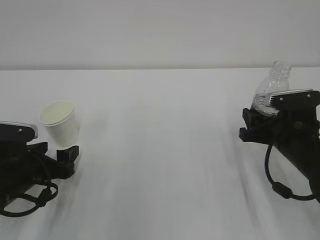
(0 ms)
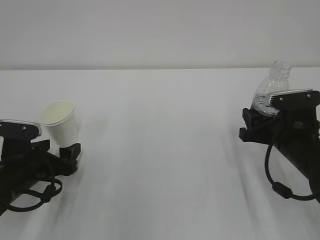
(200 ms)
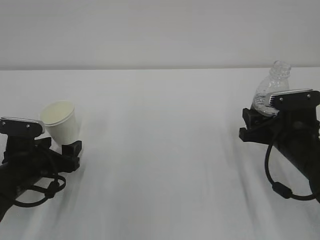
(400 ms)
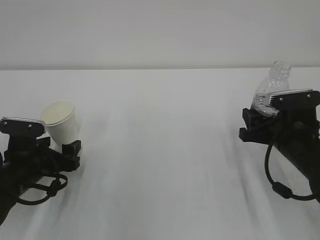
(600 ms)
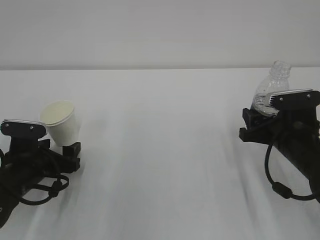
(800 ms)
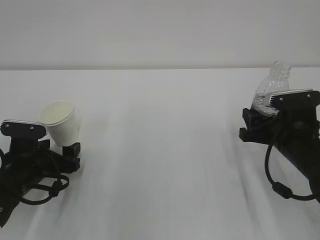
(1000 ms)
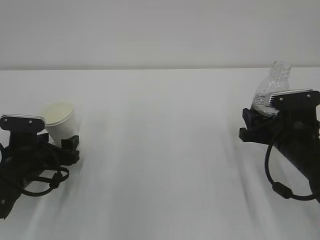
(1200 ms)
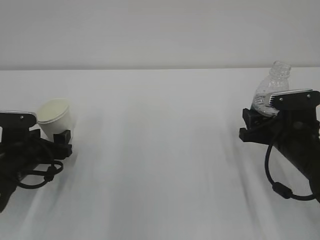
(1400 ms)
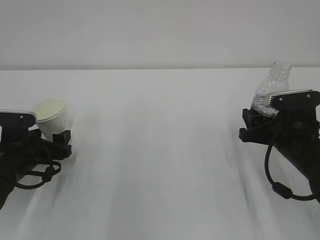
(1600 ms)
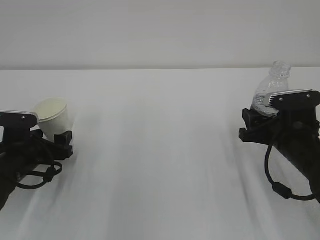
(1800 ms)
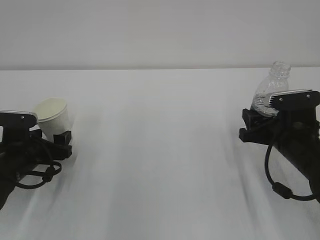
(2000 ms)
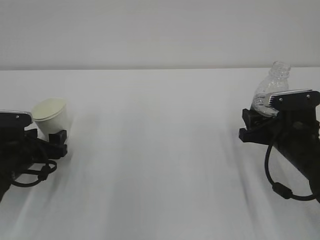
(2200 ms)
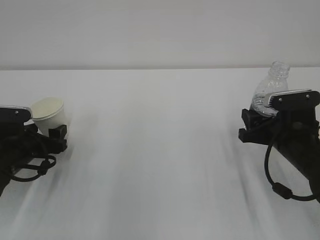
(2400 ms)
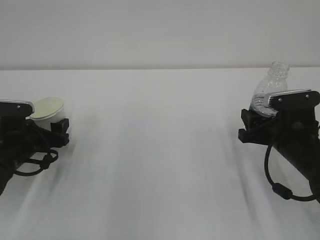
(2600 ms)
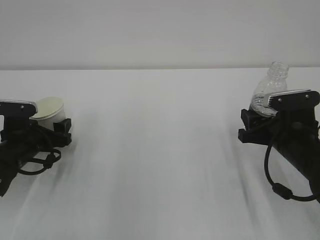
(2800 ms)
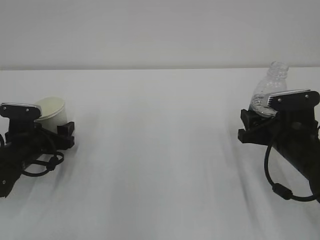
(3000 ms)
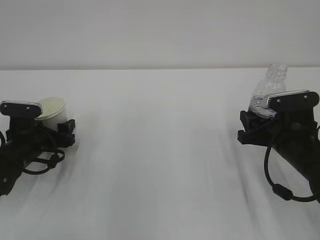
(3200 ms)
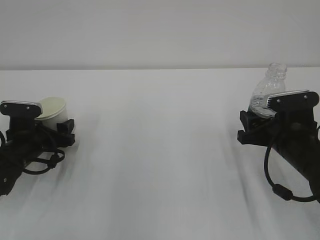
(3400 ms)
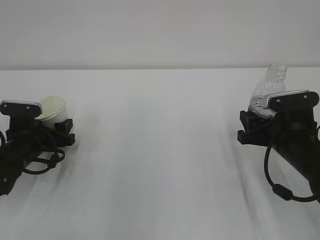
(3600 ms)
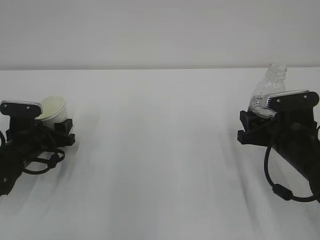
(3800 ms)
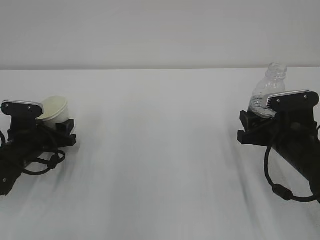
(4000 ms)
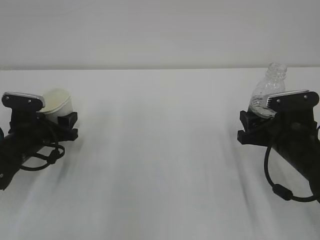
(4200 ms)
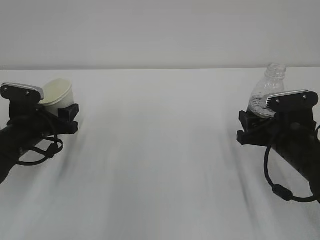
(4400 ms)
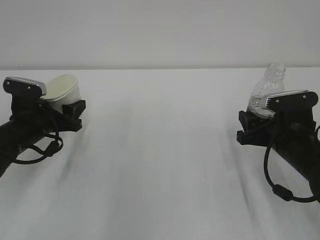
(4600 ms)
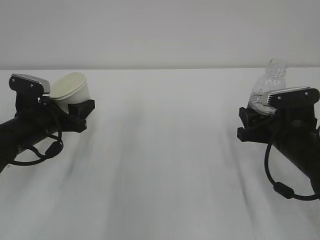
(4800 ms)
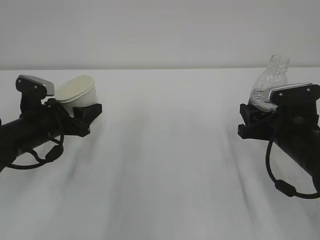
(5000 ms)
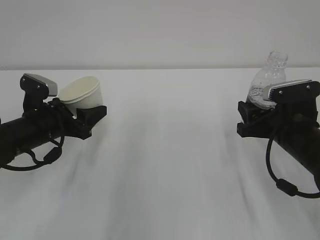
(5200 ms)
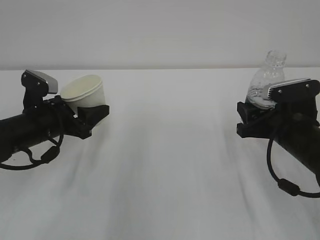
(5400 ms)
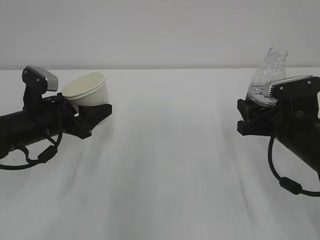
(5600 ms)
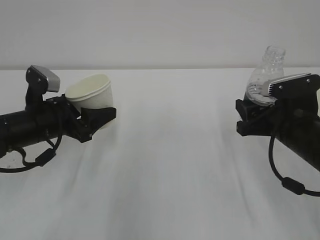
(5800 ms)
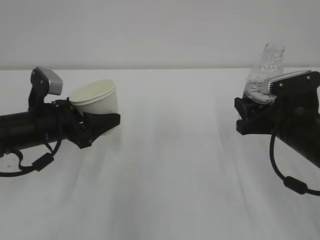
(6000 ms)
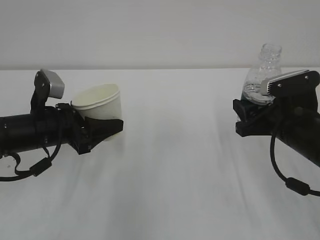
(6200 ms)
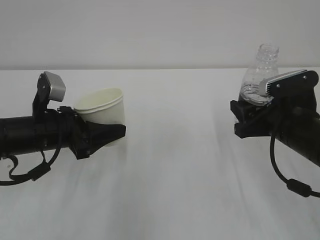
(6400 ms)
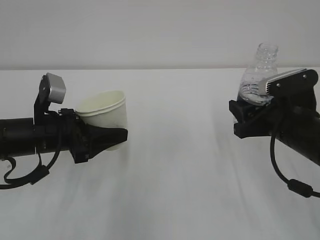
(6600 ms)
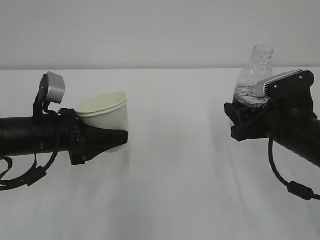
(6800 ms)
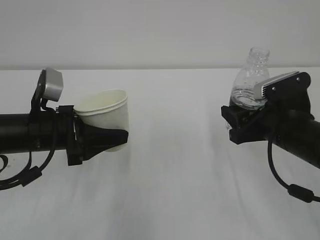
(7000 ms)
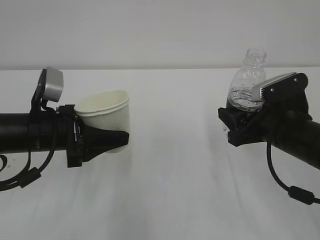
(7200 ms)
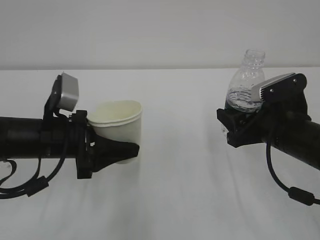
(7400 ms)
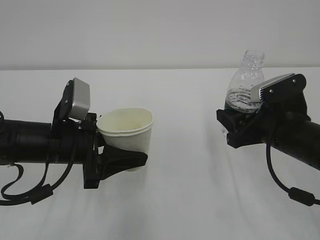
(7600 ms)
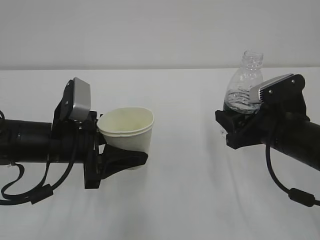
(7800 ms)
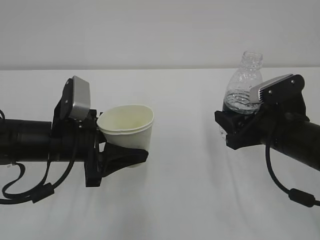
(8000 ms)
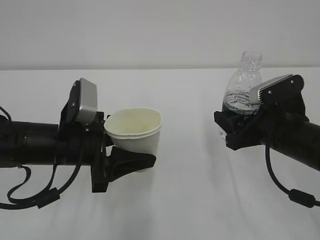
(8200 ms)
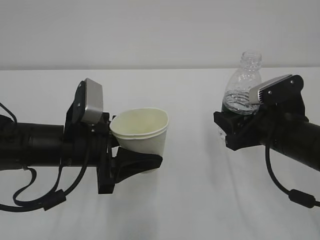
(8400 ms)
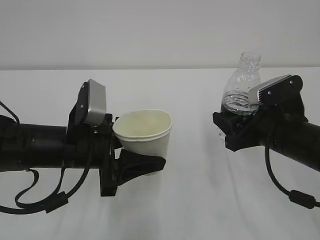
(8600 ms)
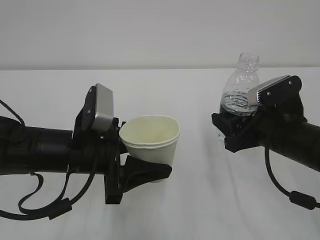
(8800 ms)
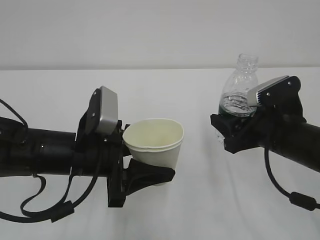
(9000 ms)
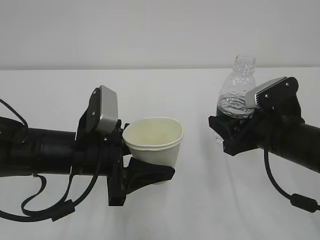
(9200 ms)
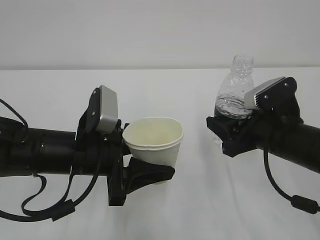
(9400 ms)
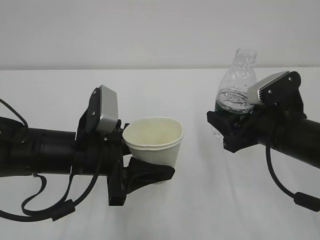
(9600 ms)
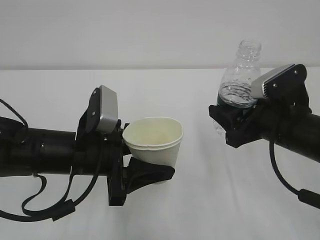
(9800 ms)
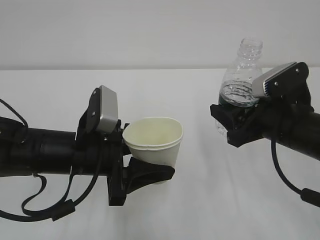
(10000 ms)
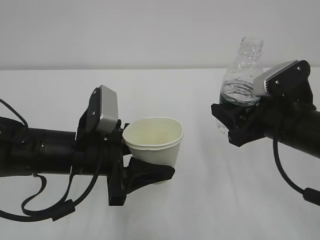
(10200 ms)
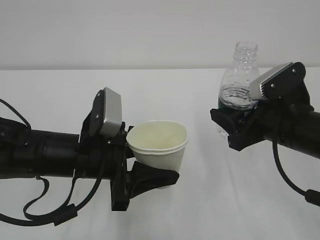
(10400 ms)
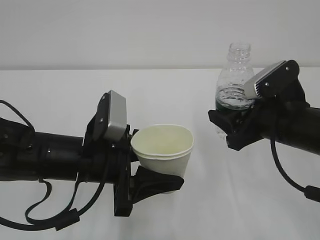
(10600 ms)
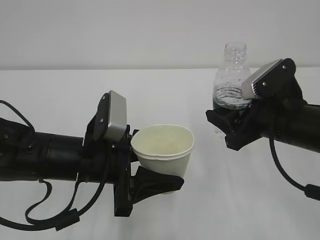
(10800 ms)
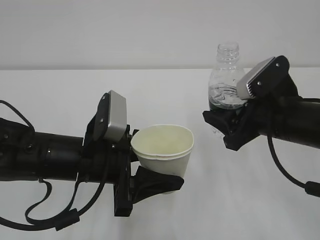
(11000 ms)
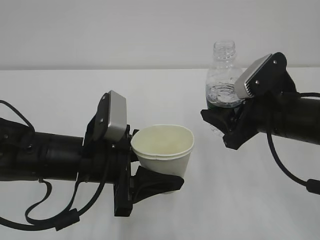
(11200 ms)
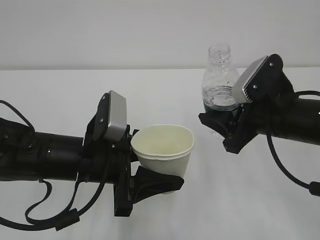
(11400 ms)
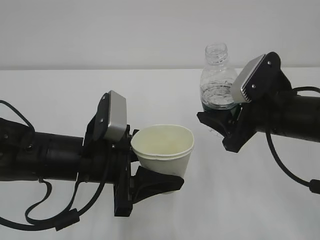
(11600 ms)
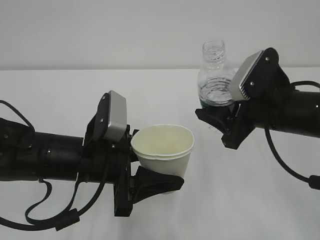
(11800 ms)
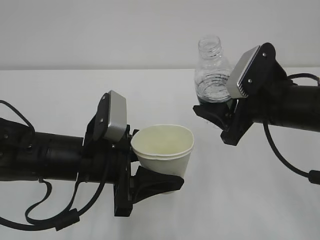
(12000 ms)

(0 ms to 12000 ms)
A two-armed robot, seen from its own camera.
0 ms - 1600 ms: The left gripper changes place by some 5 cm.
1600 ms - 3000 ms: The grippers make only small movements.
3000 ms - 4400 ms: The left gripper closes.
4400 ms - 6000 ms: The left gripper moves upward and to the right, about 5 cm.
6000 ms - 7600 ms: The left gripper changes place by about 5 cm.
7600 ms - 10400 ms: There are only small adjustments of the grippers.

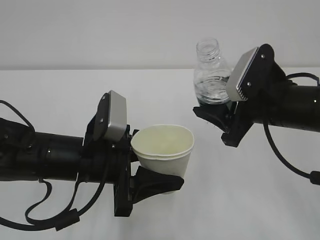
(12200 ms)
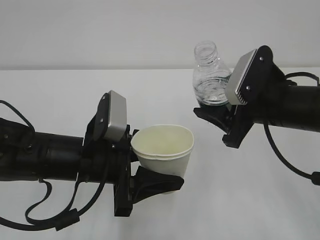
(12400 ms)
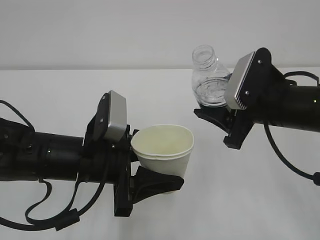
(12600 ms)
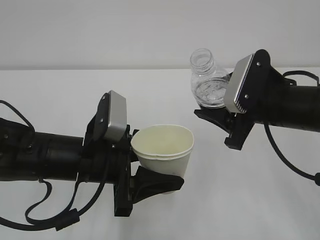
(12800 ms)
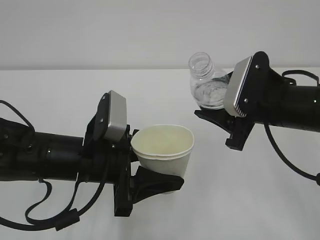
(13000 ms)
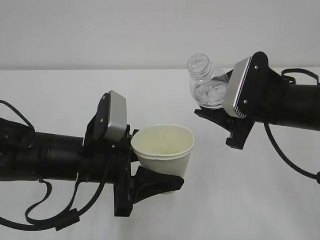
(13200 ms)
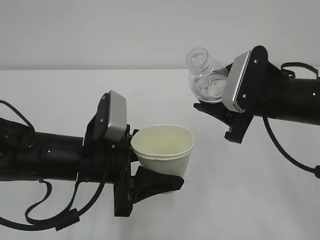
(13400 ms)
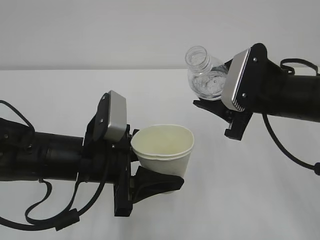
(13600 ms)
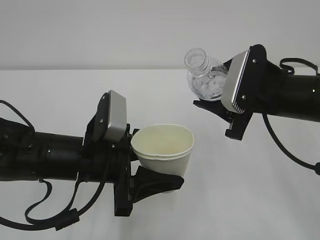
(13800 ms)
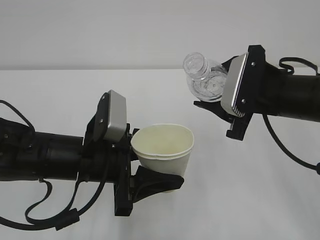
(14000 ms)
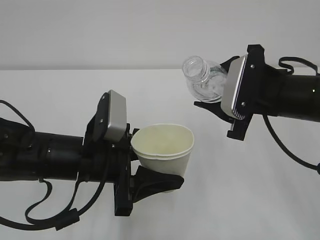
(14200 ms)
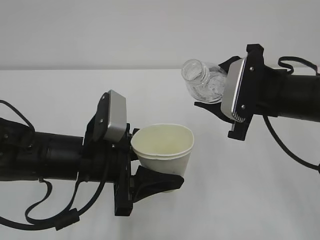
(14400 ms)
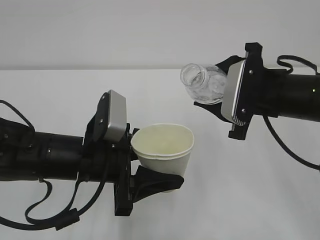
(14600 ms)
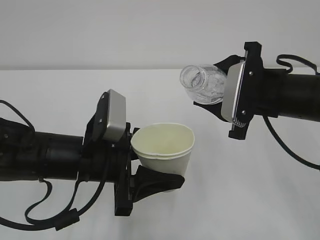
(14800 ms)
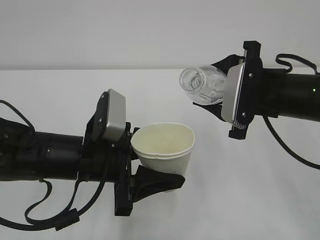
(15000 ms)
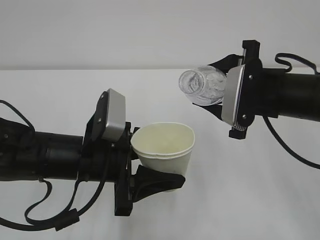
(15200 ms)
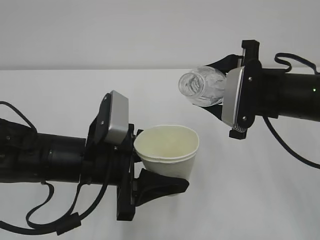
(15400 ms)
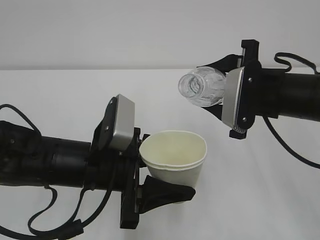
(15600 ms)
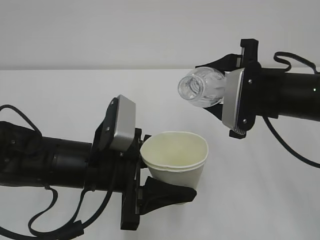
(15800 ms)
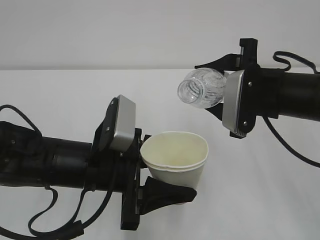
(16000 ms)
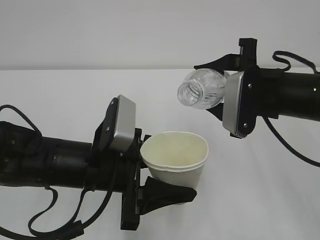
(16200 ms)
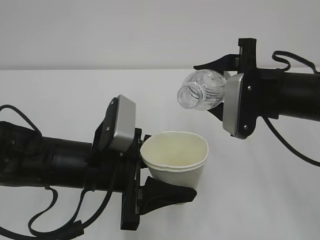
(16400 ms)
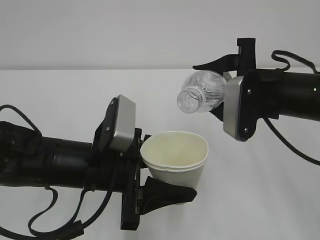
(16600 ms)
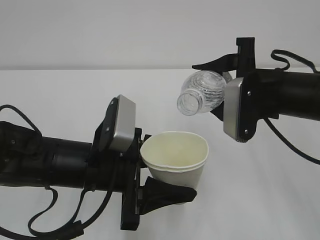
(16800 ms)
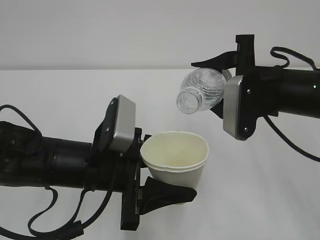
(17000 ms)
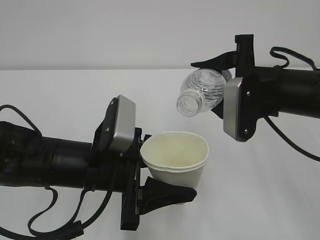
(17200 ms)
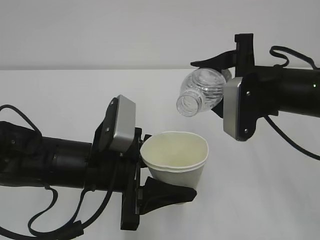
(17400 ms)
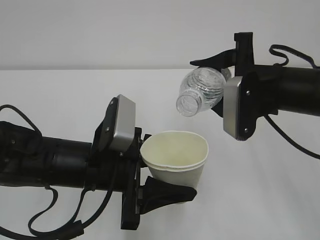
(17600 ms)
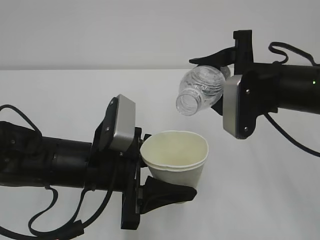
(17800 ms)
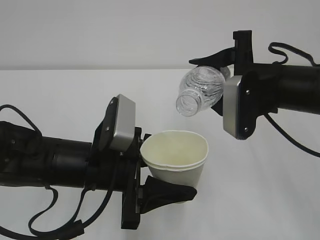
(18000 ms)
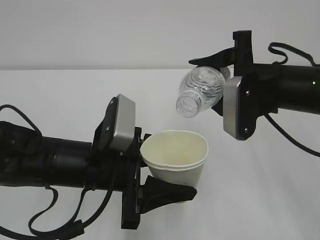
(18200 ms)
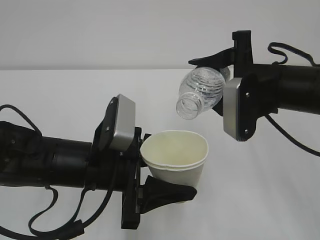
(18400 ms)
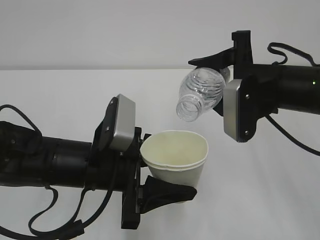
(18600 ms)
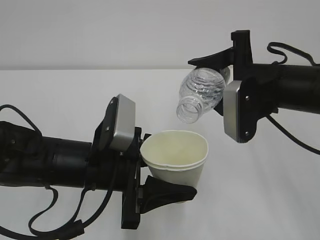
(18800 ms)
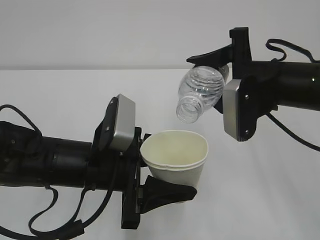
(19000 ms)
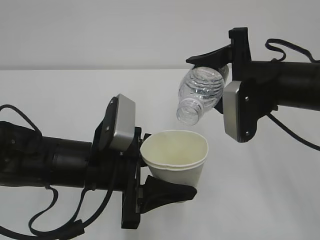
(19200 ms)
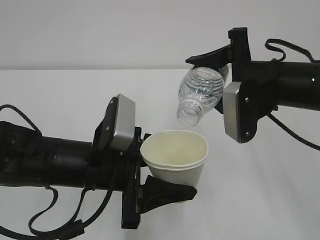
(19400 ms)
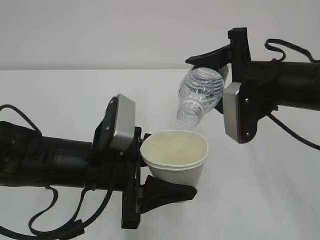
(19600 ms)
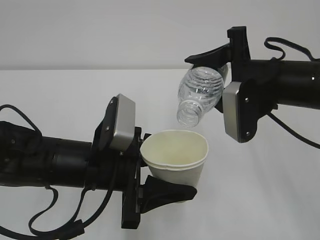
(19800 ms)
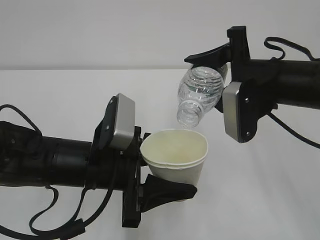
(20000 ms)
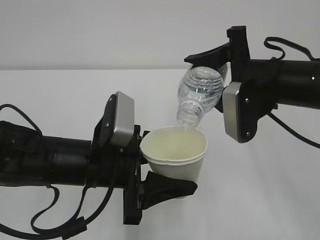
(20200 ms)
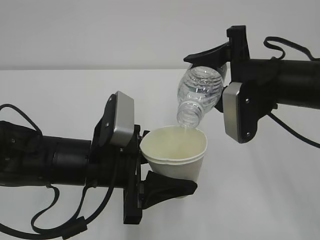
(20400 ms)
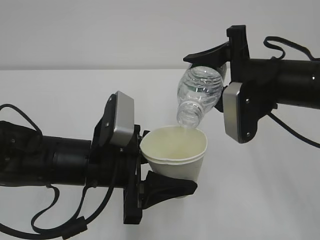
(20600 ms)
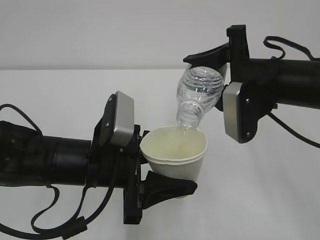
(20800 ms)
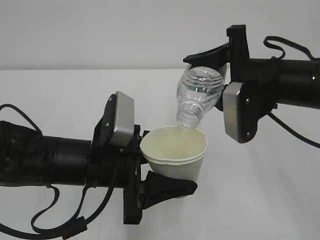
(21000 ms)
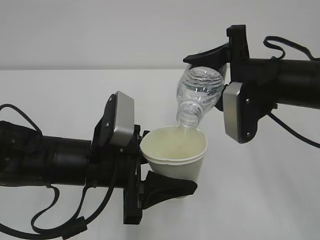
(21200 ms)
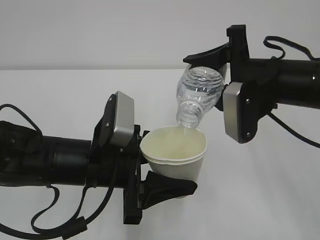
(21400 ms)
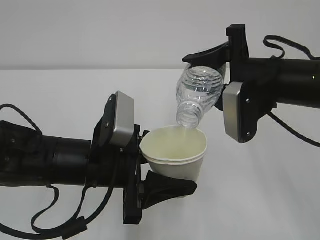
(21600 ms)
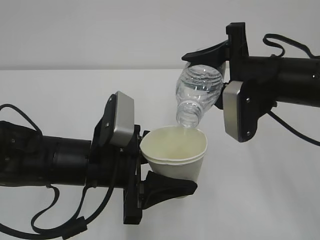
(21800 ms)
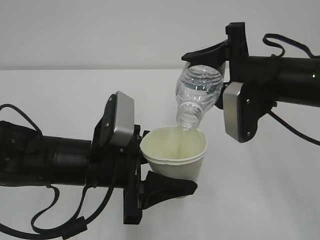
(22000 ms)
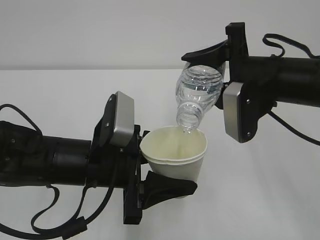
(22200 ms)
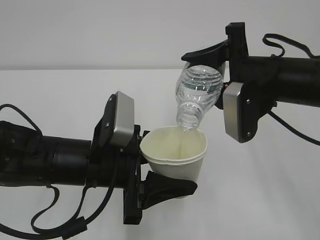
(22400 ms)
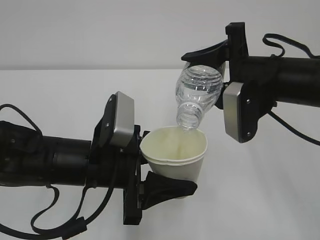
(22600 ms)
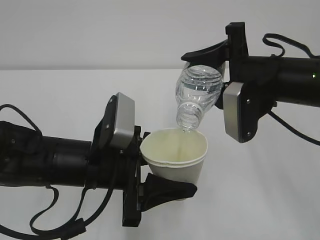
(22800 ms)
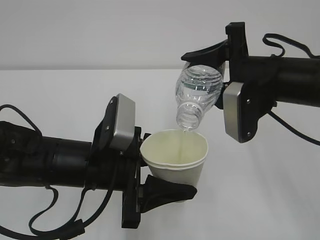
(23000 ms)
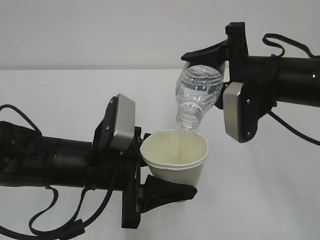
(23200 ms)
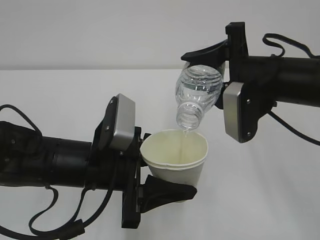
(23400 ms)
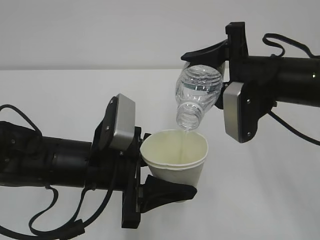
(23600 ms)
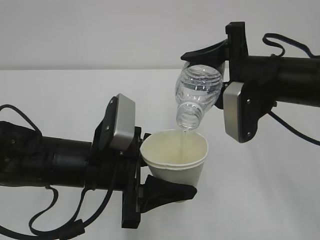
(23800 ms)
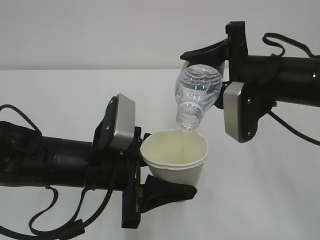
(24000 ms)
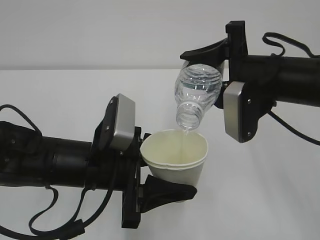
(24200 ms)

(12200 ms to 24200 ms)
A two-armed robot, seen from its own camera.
12200 ms - 13800 ms: There are only small adjustments of the grippers.
13800 ms - 15200 ms: The grippers move only a little.
15200 ms - 16600 ms: The grippers stay close to where they were, moving slightly.
16600 ms - 19800 ms: The grippers stay close to where they were, moving slightly.
19800 ms - 22600 ms: Both grippers stay about where they are.
22600 ms - 24200 ms: The two grippers keep their place.
